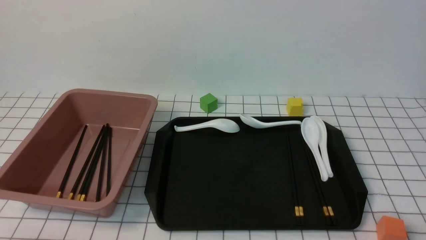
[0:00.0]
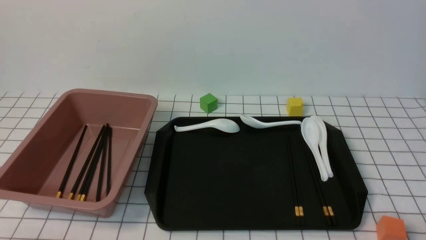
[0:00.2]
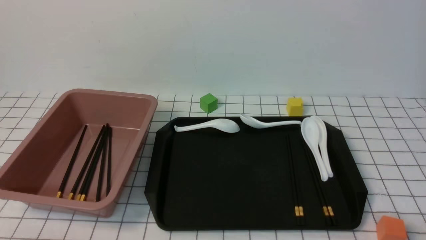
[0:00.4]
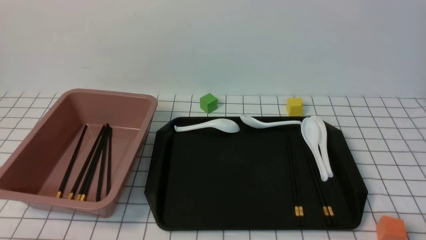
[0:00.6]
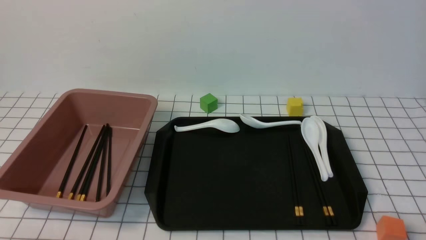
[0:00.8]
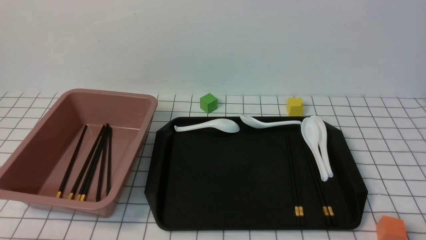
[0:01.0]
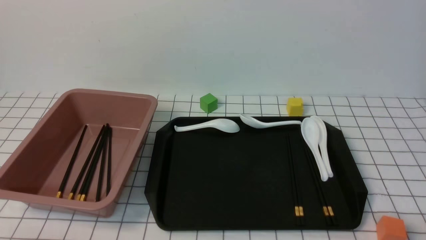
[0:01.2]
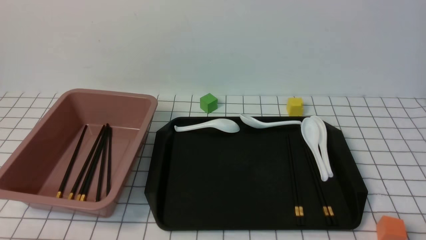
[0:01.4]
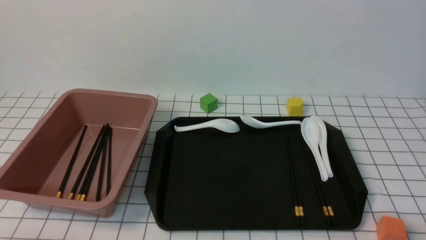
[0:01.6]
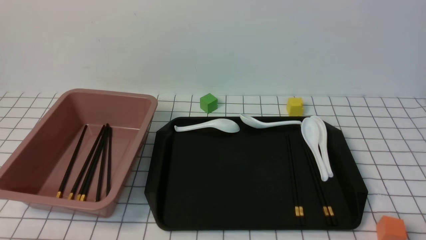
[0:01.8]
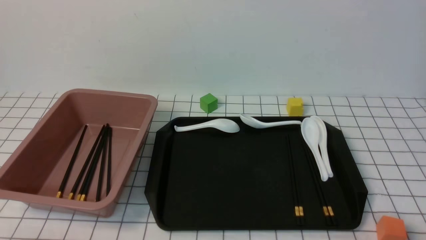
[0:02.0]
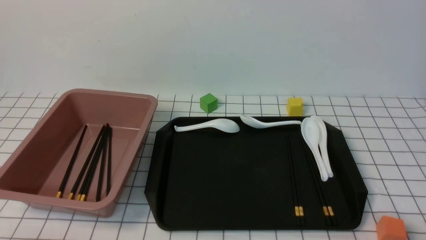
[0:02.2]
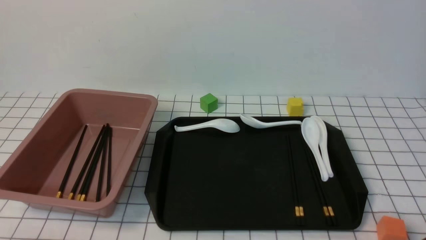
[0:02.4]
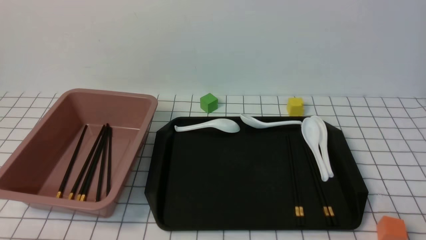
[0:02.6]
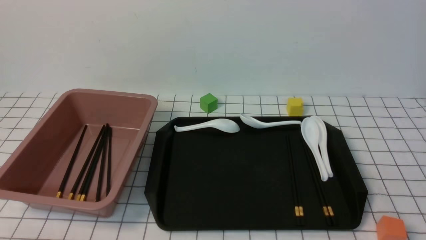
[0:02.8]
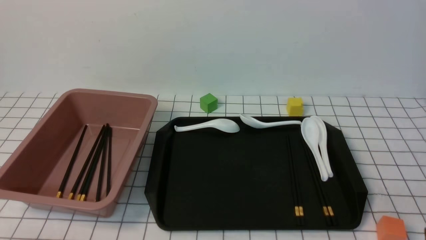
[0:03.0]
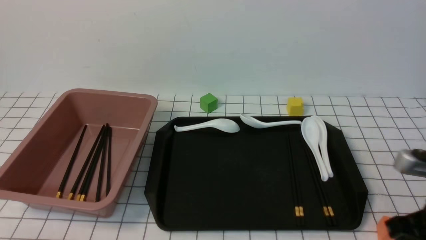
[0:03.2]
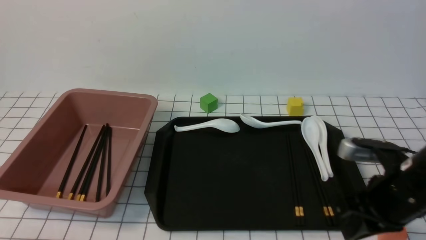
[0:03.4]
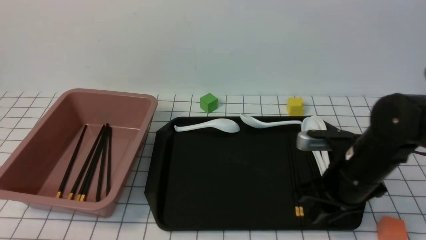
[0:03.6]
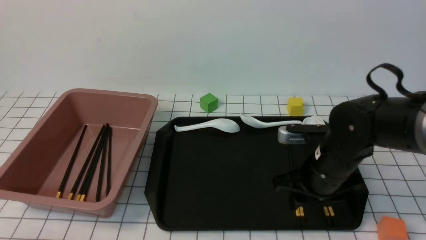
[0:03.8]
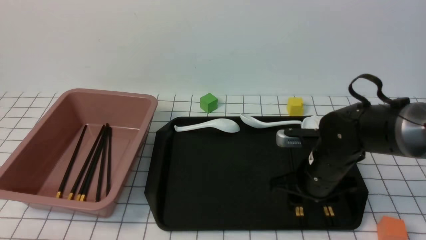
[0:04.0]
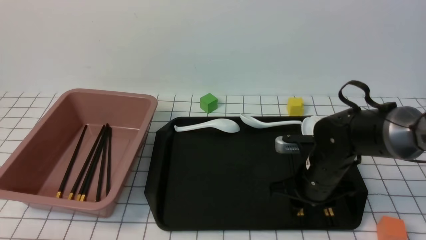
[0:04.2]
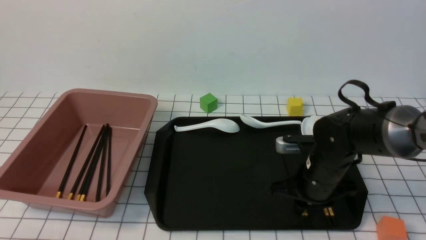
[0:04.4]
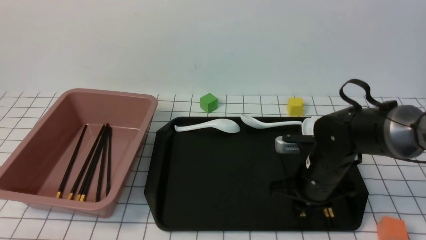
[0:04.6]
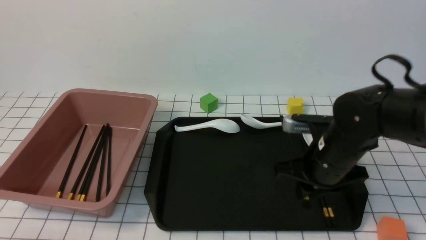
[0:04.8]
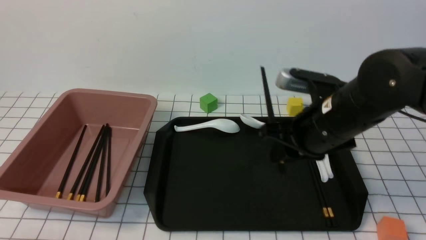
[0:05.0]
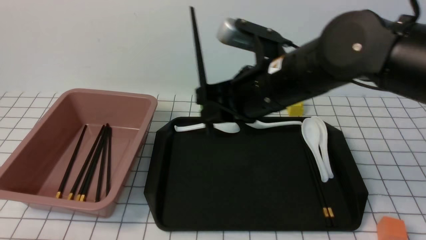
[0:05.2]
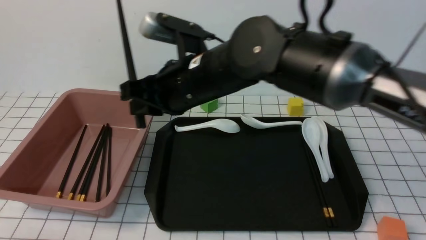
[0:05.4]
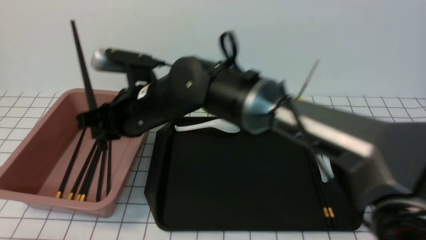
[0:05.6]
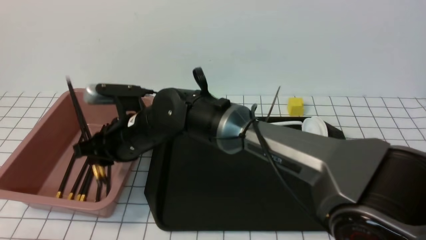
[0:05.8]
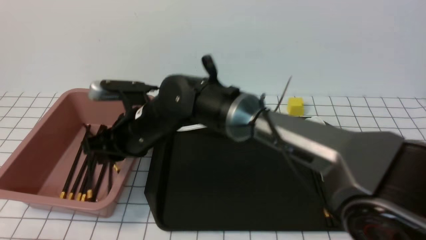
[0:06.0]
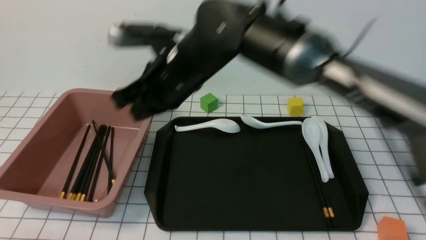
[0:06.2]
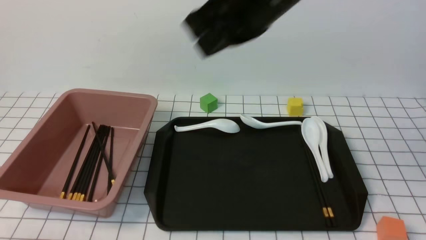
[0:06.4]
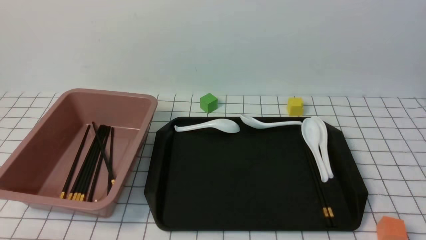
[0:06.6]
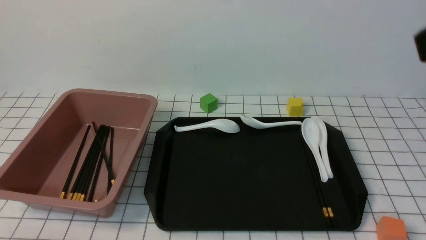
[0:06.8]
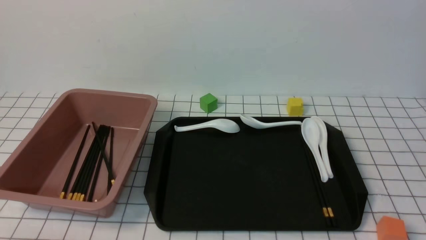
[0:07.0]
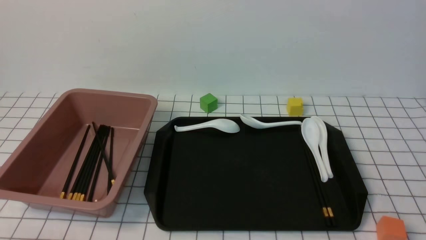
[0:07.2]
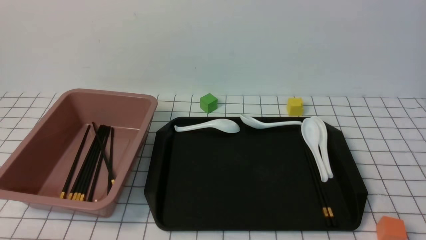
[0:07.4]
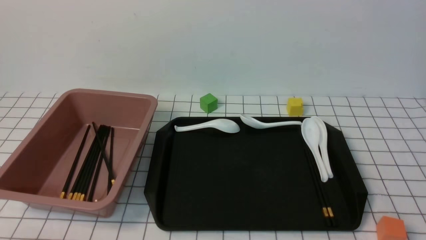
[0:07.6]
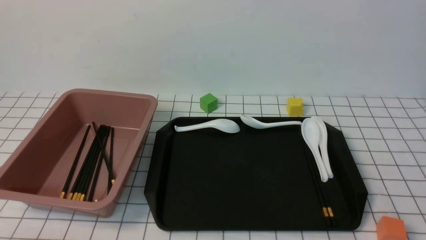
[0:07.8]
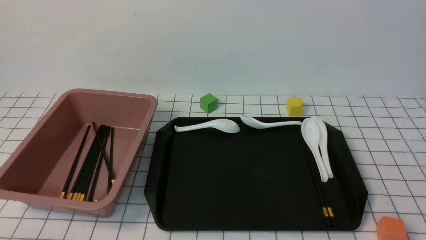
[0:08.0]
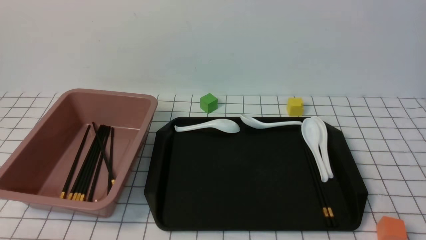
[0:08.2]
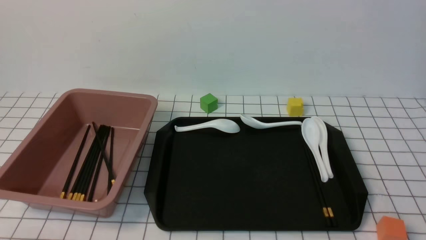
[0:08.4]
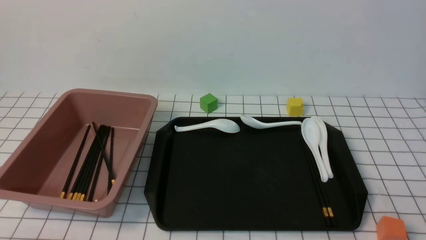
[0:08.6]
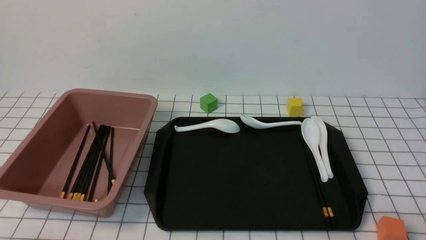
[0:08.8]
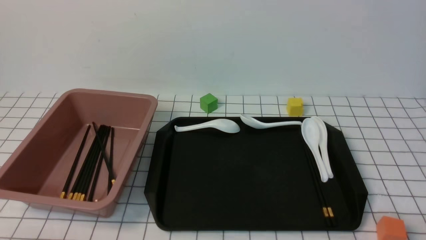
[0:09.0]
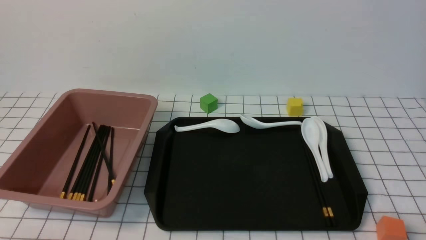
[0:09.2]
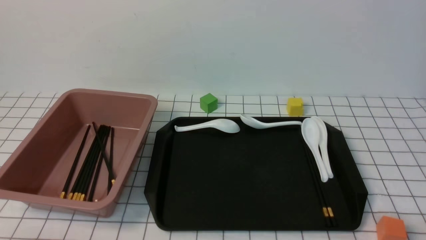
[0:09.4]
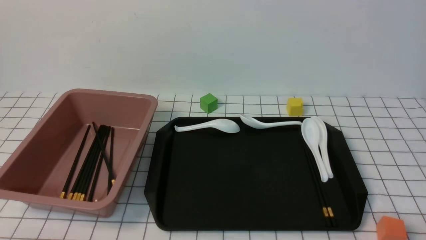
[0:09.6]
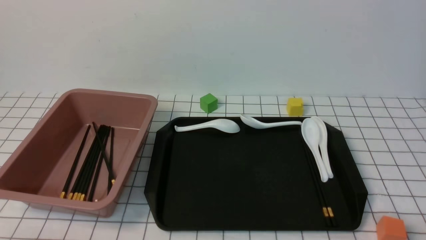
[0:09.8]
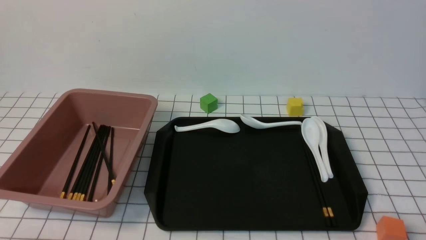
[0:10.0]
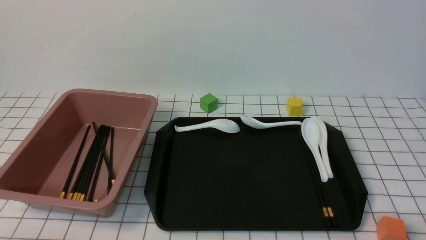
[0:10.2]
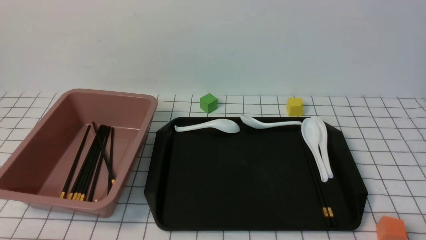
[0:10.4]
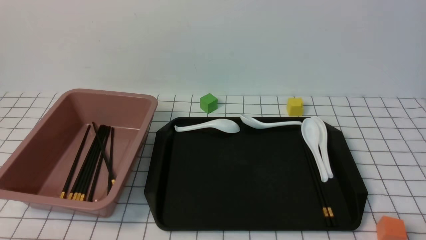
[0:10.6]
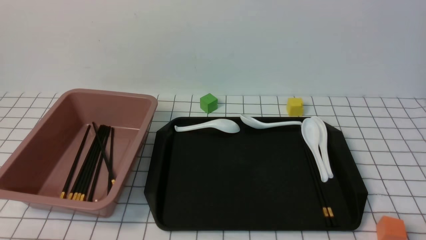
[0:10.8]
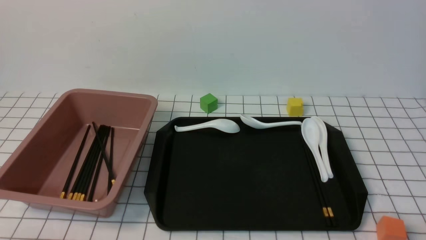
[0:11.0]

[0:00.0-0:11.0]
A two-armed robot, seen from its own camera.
Step, 0:00.0 to 0:04.6: use the right arm to grab a pair of chopsticks.
Step, 0:04.8 to 0:06.0: use the right arm to put the chopsticks into the lunch box.
0:00.0 to 0:01.6: Both grippers stay about where they are.
0:01.6 to 0:03.2: The right gripper shifts about 15 cm forward and upward, and closes its fingers.
0:03.2 to 0:04.8: The right gripper travels forward and to the left by about 15 cm, and opens, then closes again.
0:04.8 to 0:06.2: The right gripper shifts some 20 cm to the left and upward.
0:06.2 to 0:07.8: The right gripper travels to the right and backward by roughly 40 cm.
0:09.4 to 0:11.0: Both grippers stay put.

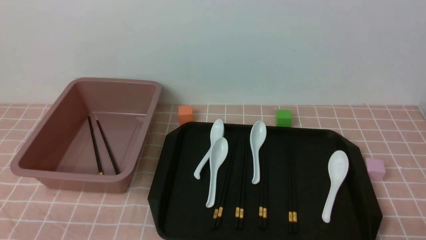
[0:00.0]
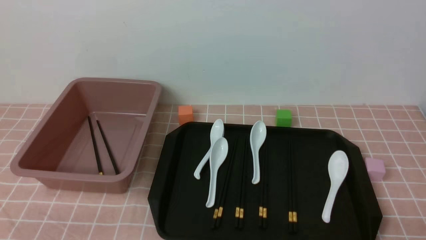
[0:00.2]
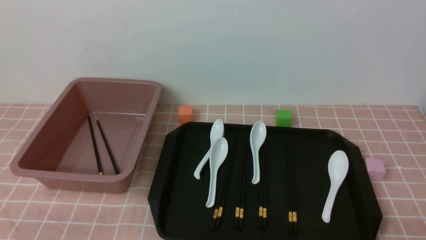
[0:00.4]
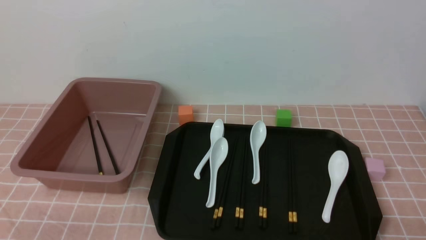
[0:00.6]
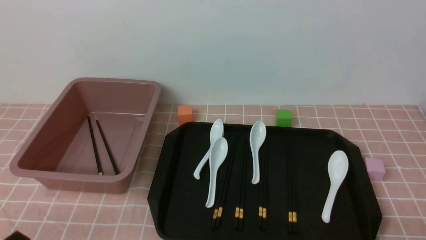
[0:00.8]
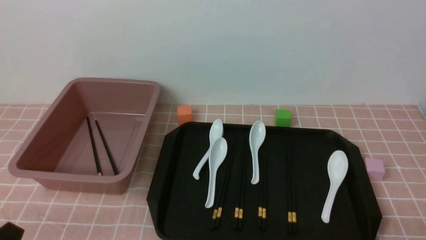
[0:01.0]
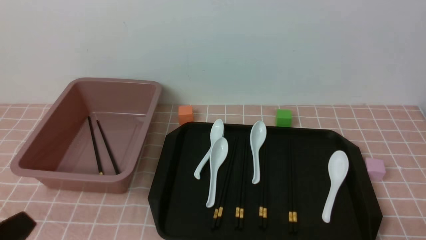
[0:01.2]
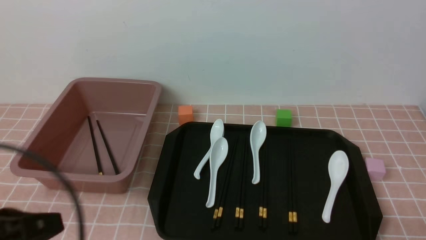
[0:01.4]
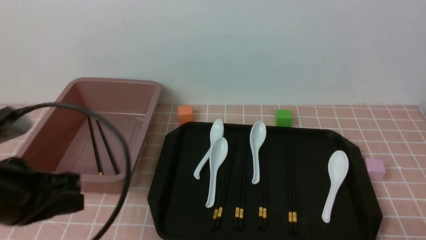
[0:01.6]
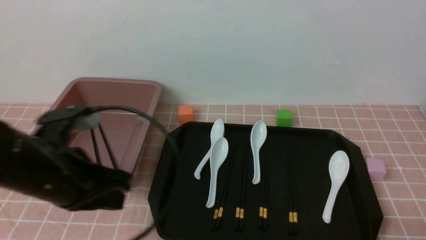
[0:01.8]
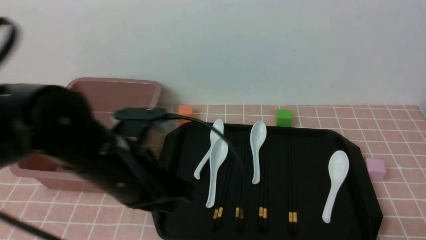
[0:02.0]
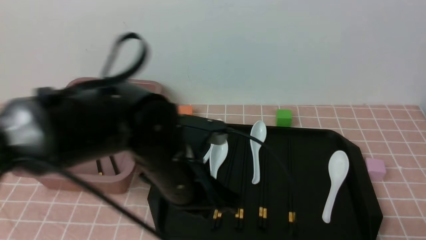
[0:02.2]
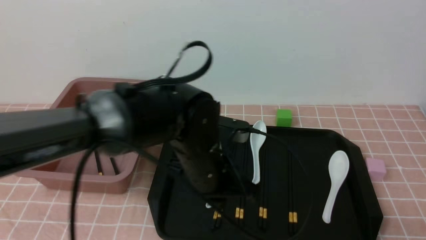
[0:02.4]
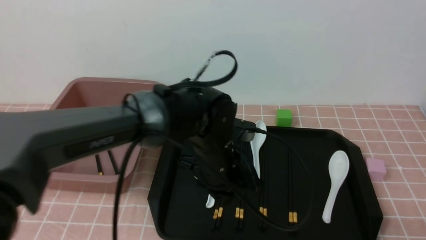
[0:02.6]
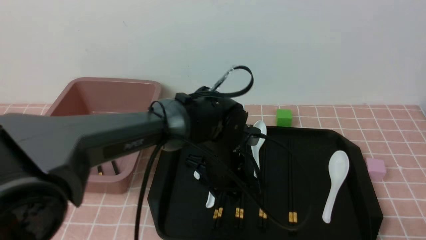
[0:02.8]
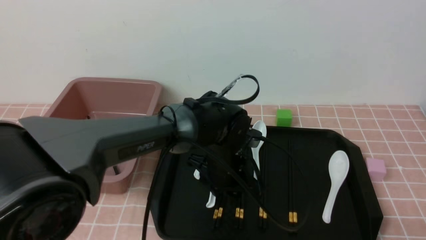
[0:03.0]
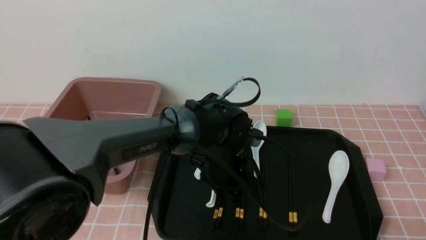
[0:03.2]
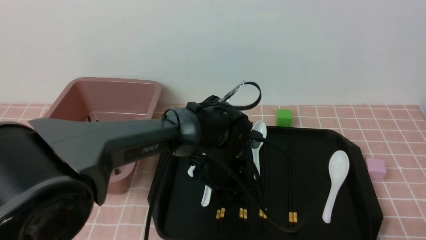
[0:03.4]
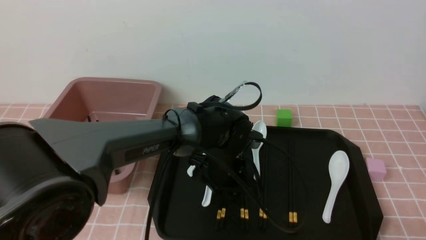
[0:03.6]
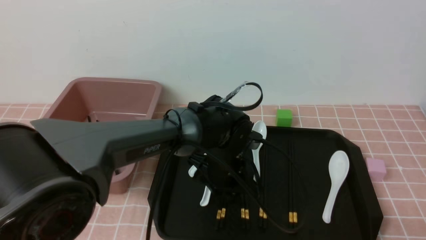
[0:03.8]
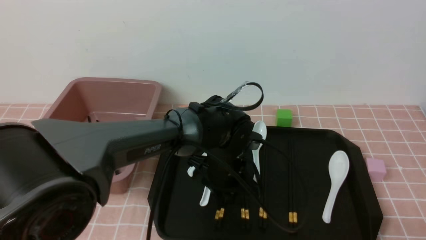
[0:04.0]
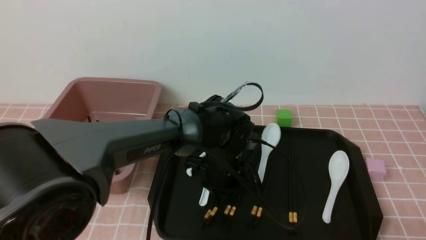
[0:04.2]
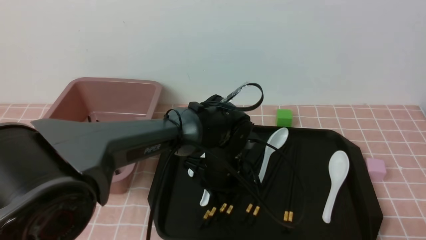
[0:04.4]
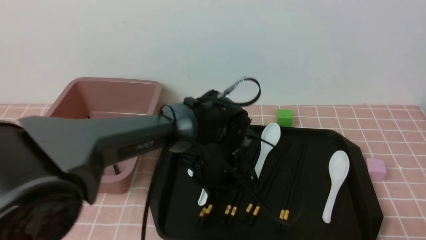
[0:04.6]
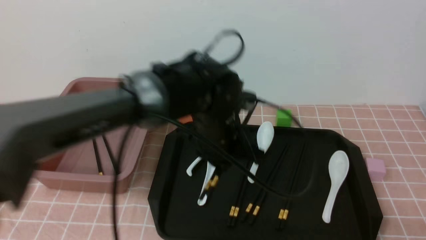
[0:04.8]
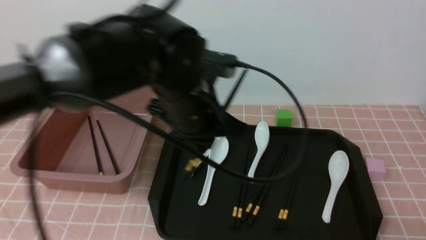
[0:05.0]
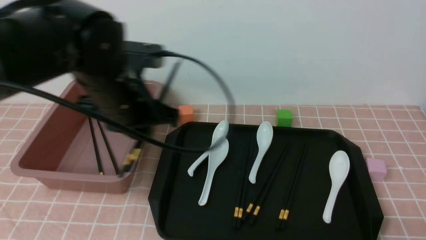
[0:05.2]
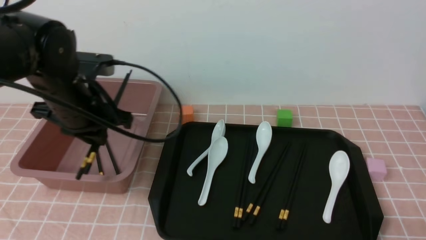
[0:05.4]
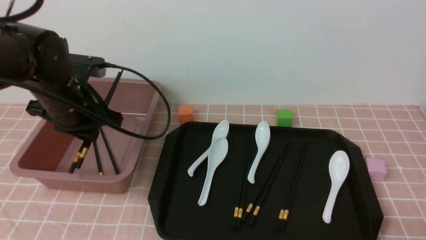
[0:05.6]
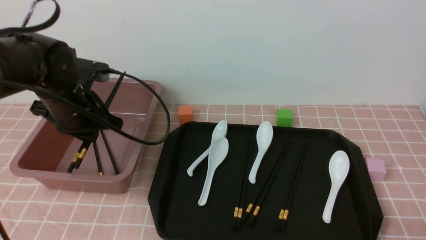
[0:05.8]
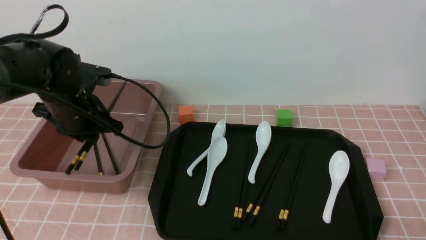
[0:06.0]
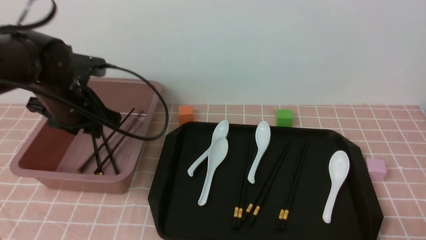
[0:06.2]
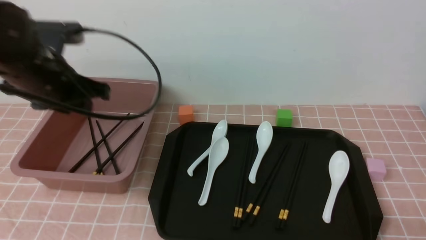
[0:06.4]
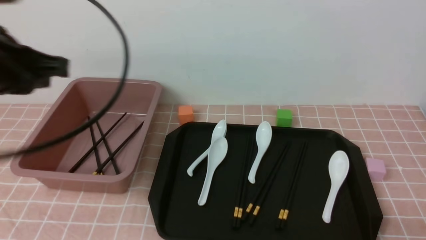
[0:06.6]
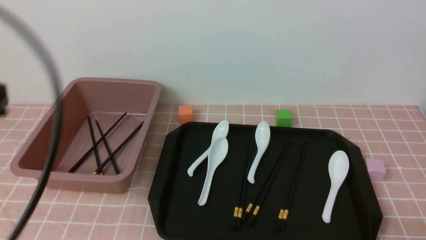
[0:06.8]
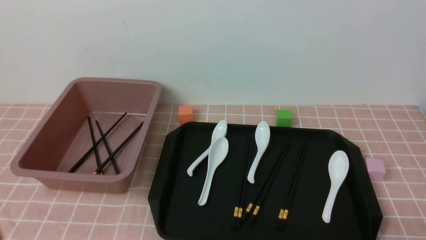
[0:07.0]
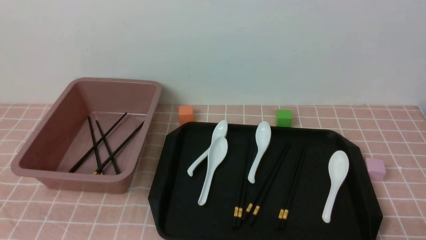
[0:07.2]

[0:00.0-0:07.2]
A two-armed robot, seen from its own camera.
Step, 0:00.0 to 0:05.0: use the left arm to grab a pair of chopsticks.
Step, 0:05.2 to 0:06.4: use the left arm to put the chopsticks into the lunch box.
0:01.4 to 0:02.8: The left gripper heads to the right and forward, covering roughly 35 cm, and opens its fingers.
0:02.8 to 0:04.4: The grippers move only a little.
0:04.4 to 0:05.8: The left gripper moves to the left and upward, about 25 cm.
0:05.8 to 0:07.2: The left gripper moves backward, roughly 30 cm, and closes.
